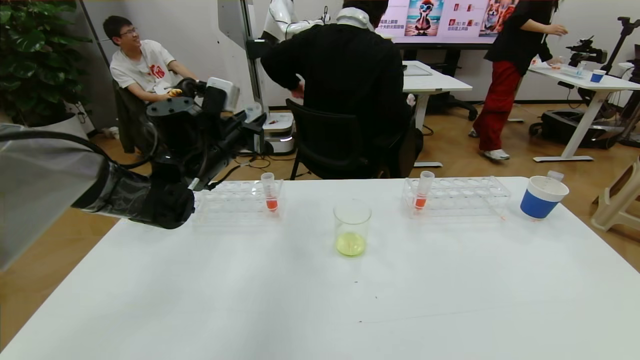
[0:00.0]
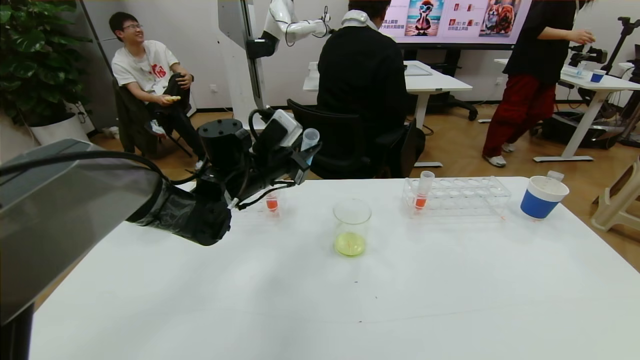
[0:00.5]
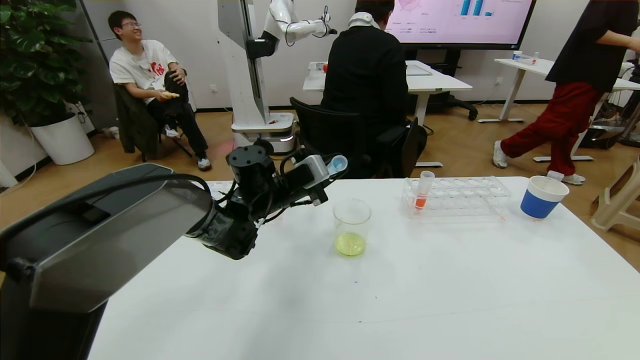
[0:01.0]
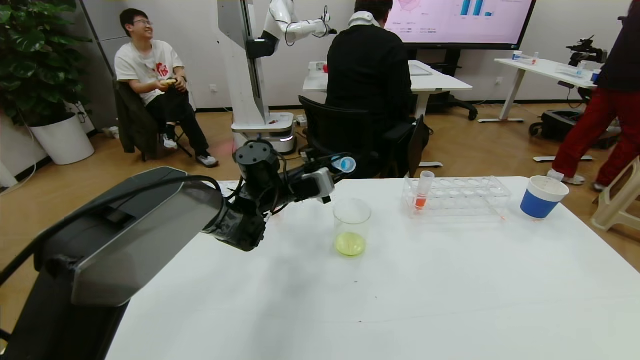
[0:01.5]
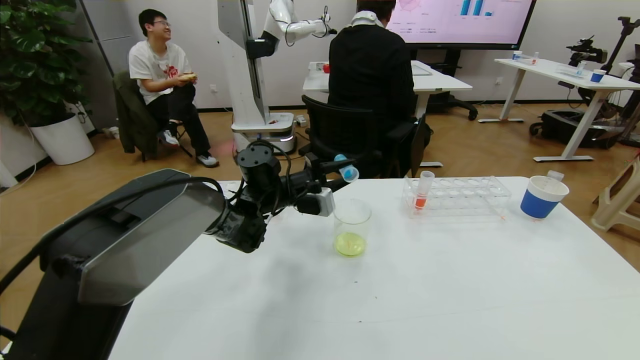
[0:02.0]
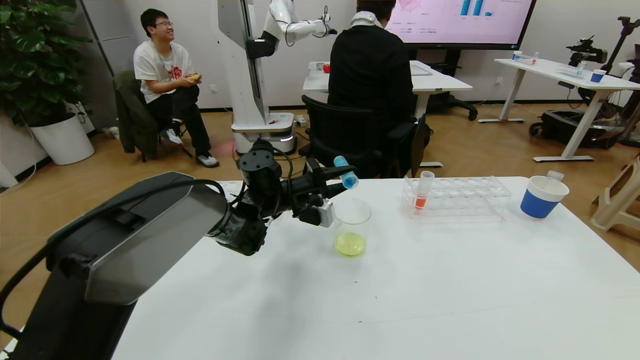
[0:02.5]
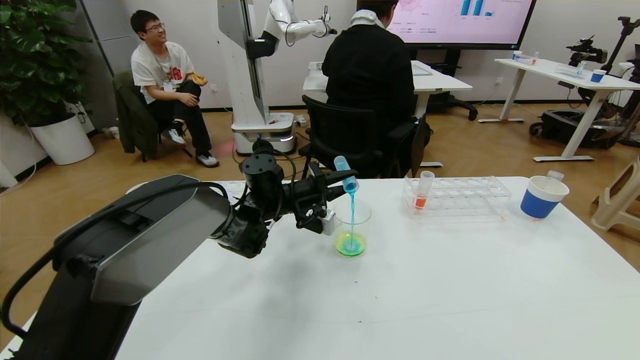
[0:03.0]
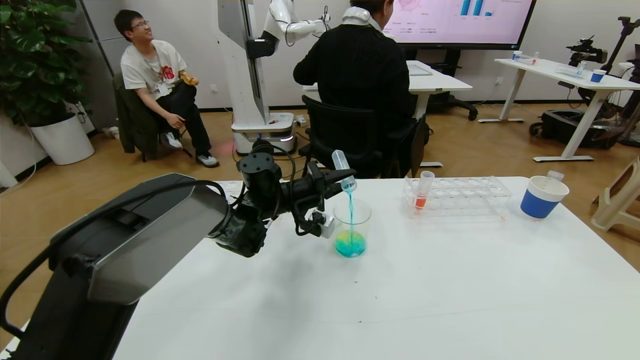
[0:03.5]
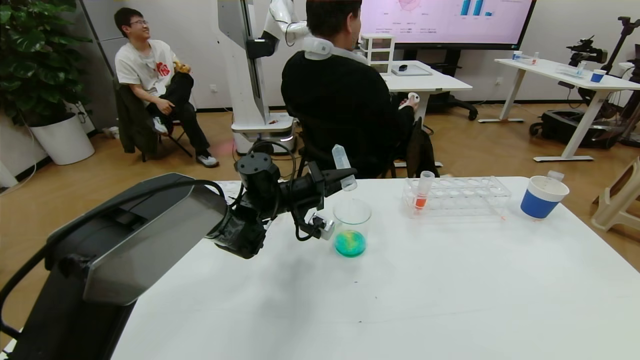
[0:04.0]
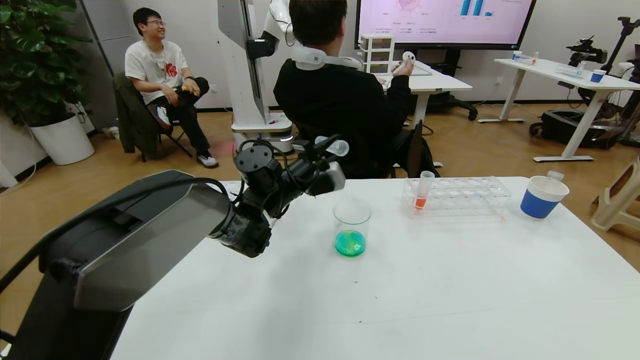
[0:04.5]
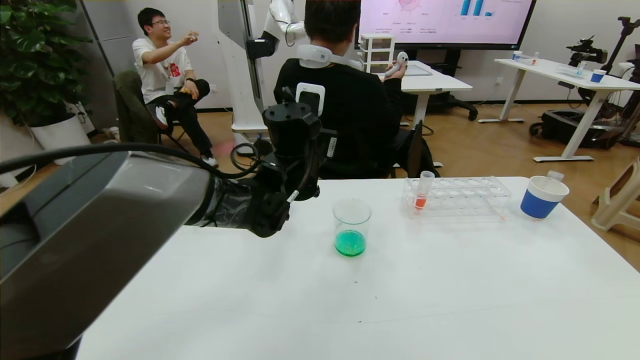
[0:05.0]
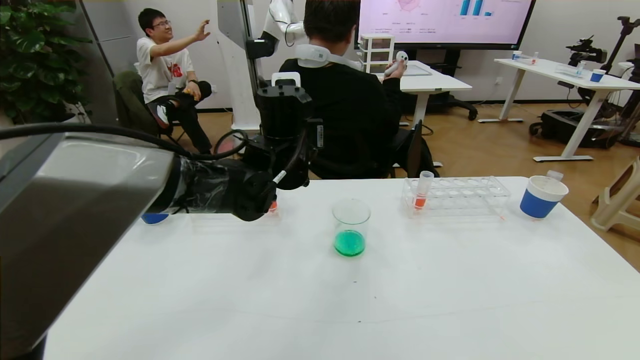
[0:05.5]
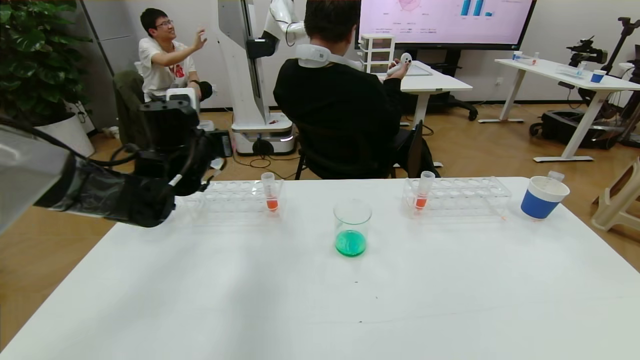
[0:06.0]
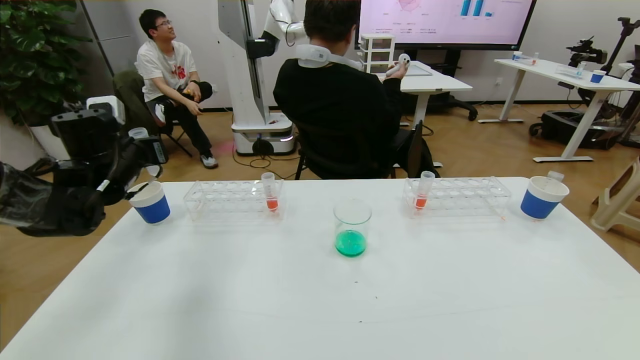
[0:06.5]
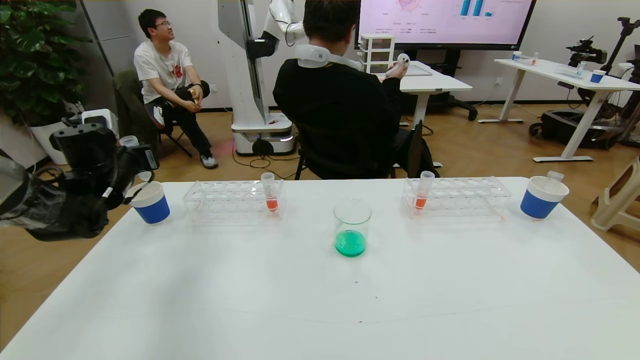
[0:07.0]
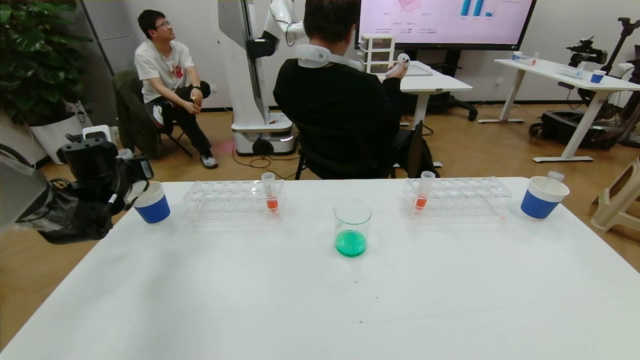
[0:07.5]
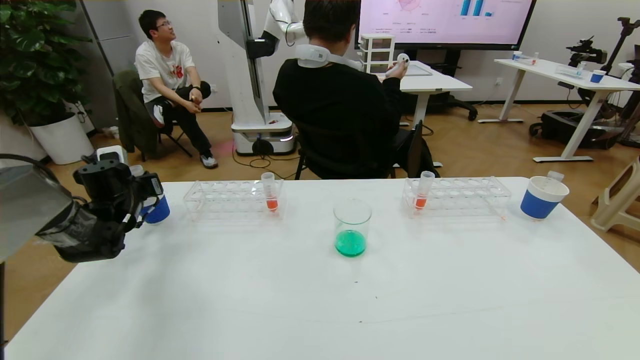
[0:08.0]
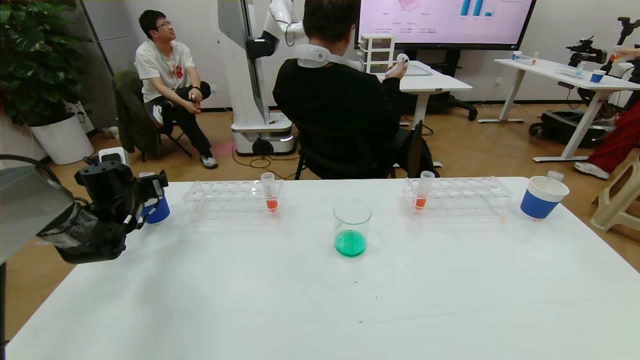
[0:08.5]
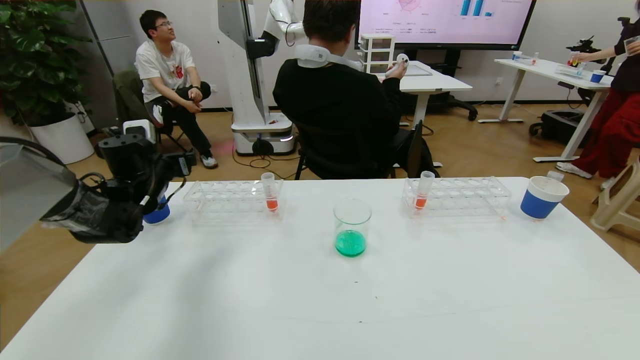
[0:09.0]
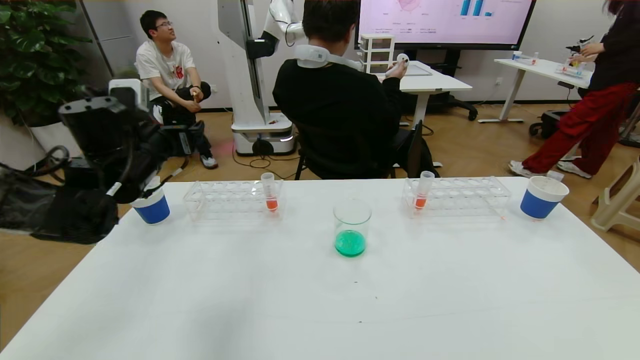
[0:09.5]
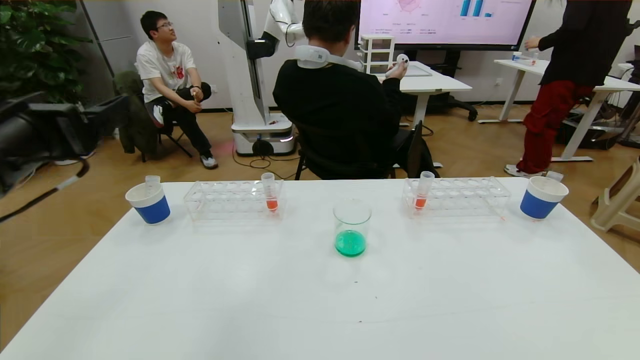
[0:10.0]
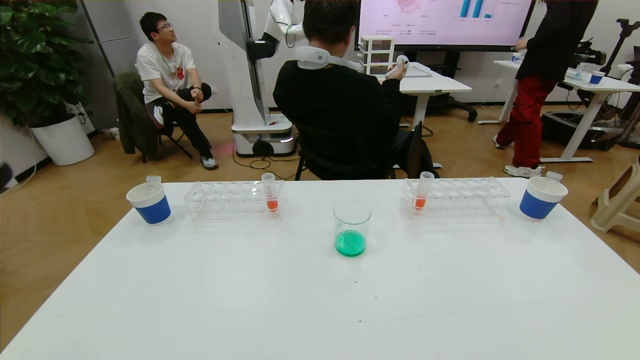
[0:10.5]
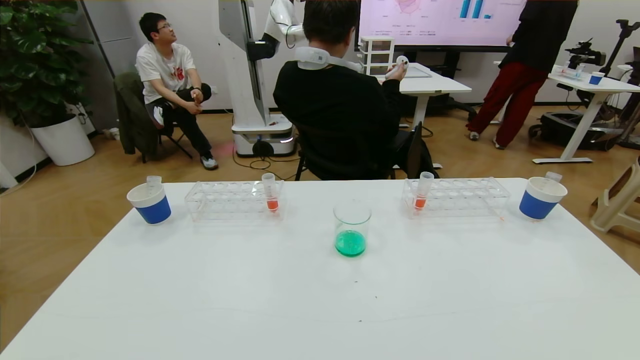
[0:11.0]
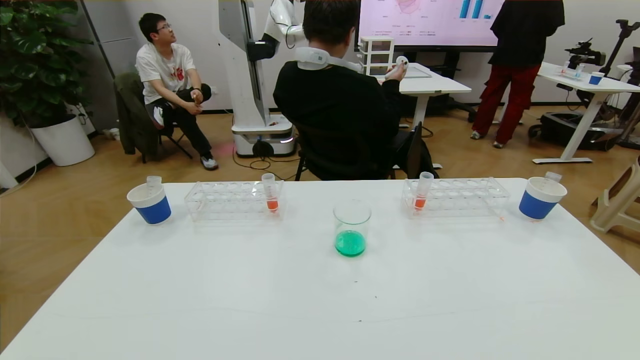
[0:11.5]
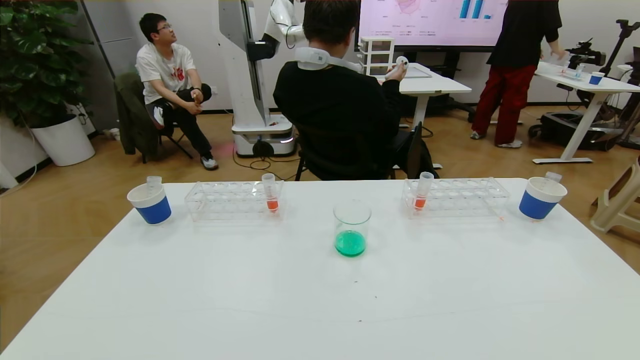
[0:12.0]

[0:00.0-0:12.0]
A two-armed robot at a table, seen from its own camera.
Task of the whole recording: pick up the test tube with yellow pigment and the test tube with blue pigment by grippers and pour them into the beaker.
Step, 0:00.0 to 0:12.0: Pour the blue reagent into the graduated cylinder and place the test tube into the paper cup.
0:00.0 to 0:02.0: The left gripper moves to the right and downward, approximately 15 cm.
0:04.0 to 0:06.0: The left gripper is displaced to the left and upward by about 15 cm.
0:06.0 to 0:08.0: The left gripper goes approximately 20 cm to the left and downward.
0:08.0 to 0:10.0: The left gripper heads backward, upward and to the right, covering about 30 cm, and opens up.
0:10.0 to 0:12.0: The left gripper heads backward and downward, covering roughly 30 cm.
